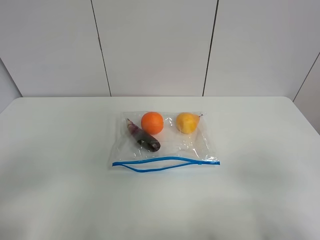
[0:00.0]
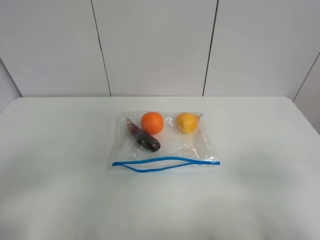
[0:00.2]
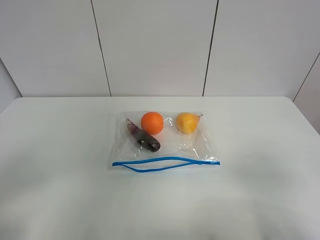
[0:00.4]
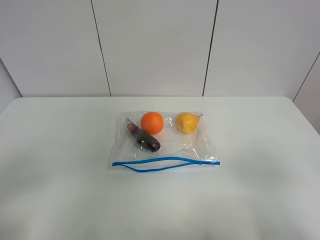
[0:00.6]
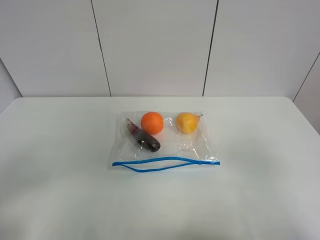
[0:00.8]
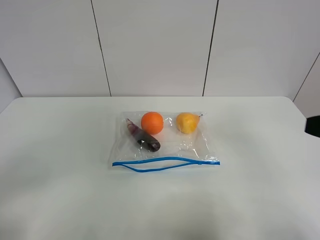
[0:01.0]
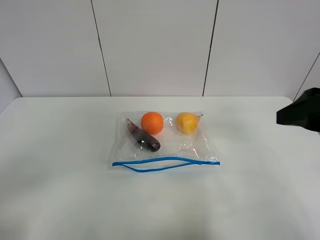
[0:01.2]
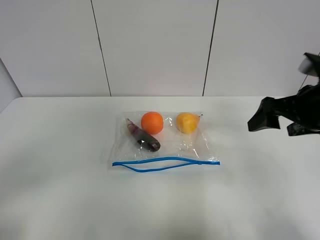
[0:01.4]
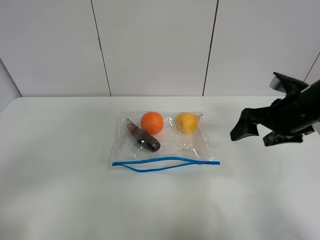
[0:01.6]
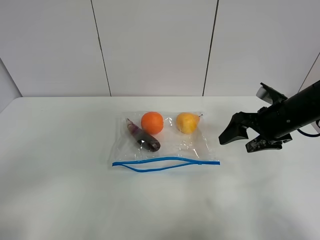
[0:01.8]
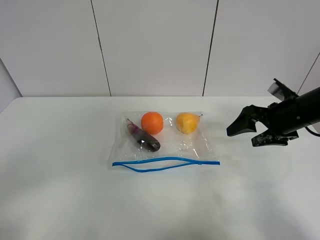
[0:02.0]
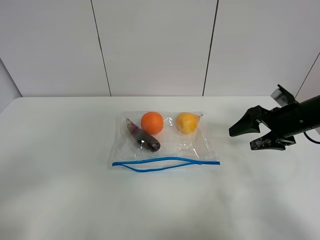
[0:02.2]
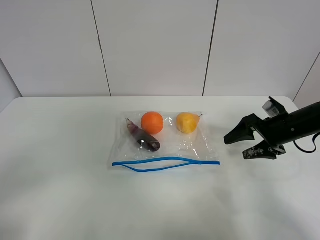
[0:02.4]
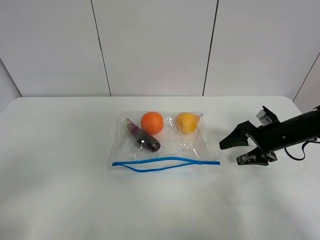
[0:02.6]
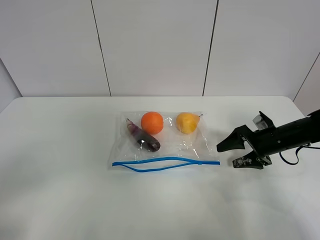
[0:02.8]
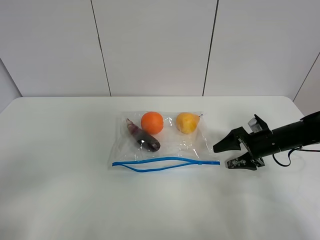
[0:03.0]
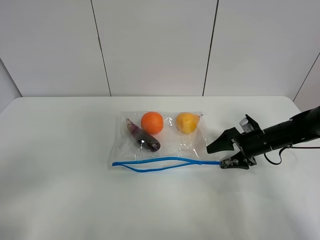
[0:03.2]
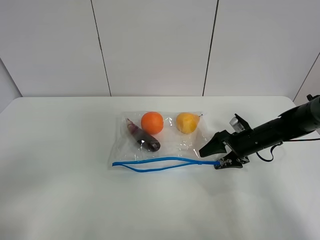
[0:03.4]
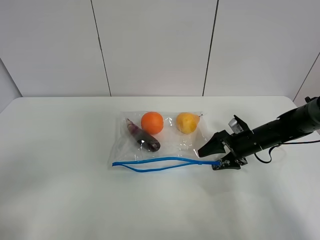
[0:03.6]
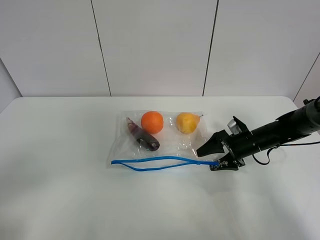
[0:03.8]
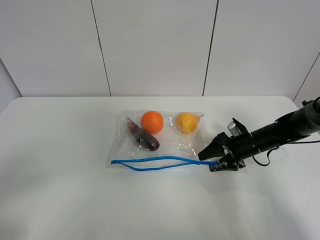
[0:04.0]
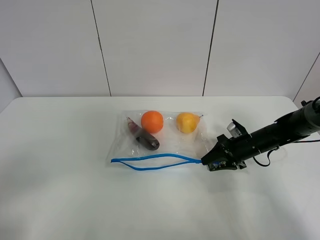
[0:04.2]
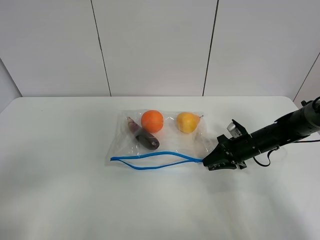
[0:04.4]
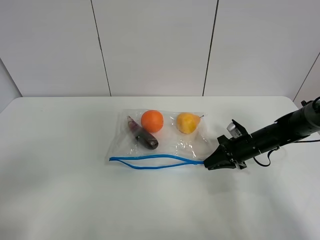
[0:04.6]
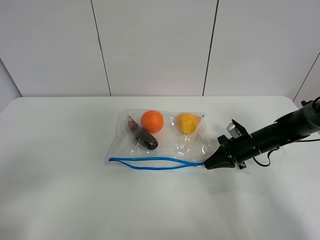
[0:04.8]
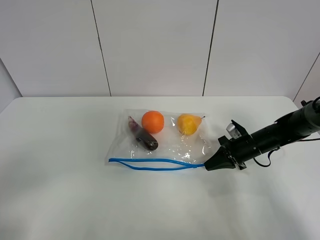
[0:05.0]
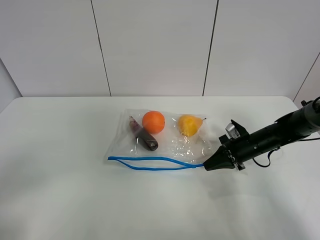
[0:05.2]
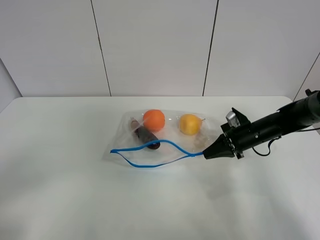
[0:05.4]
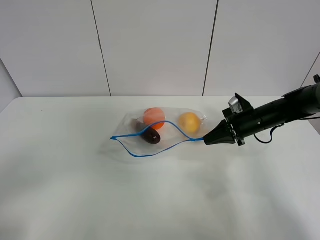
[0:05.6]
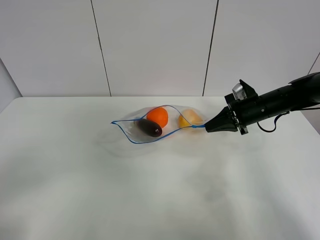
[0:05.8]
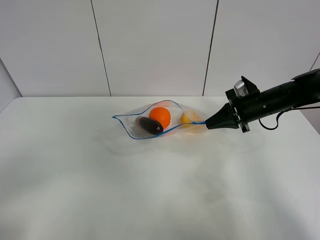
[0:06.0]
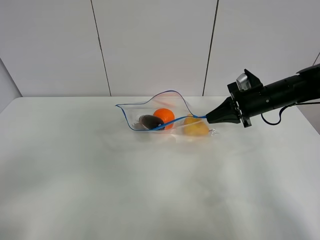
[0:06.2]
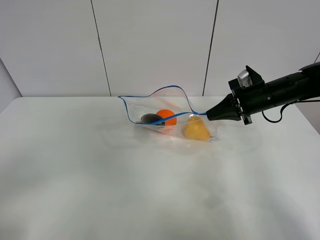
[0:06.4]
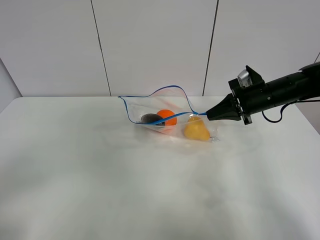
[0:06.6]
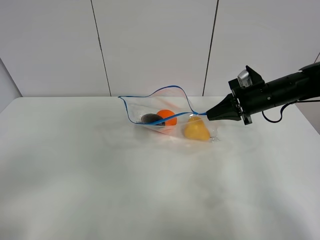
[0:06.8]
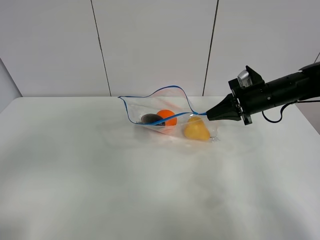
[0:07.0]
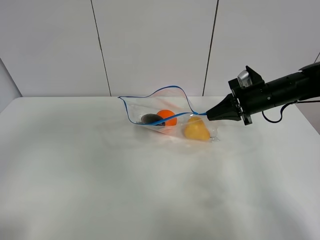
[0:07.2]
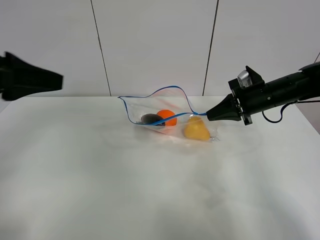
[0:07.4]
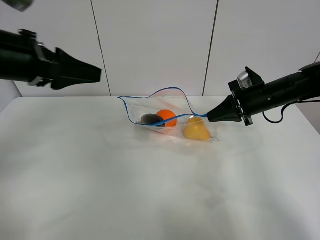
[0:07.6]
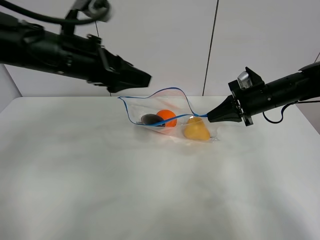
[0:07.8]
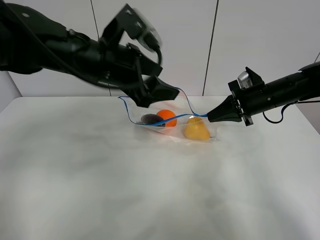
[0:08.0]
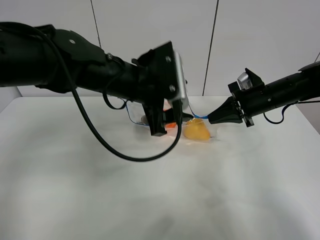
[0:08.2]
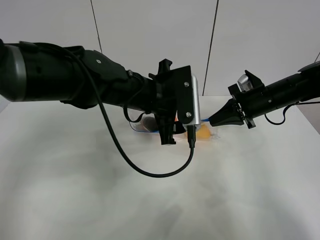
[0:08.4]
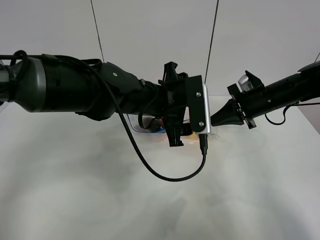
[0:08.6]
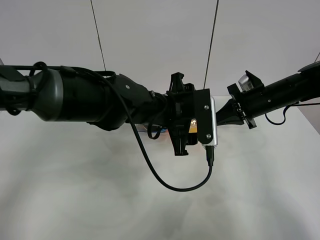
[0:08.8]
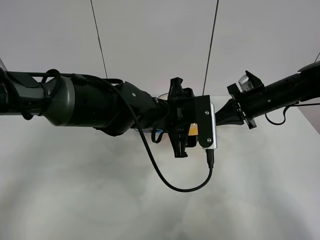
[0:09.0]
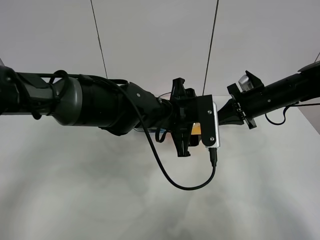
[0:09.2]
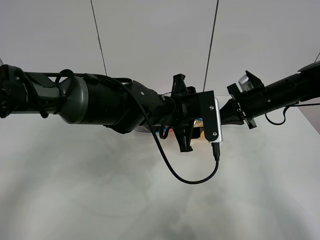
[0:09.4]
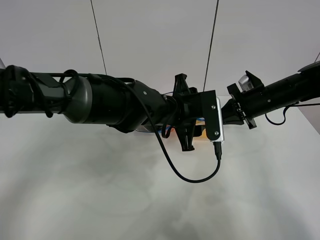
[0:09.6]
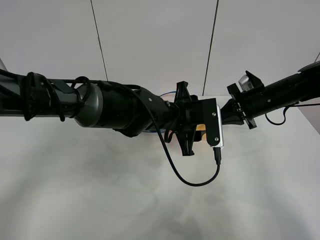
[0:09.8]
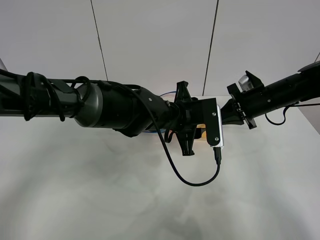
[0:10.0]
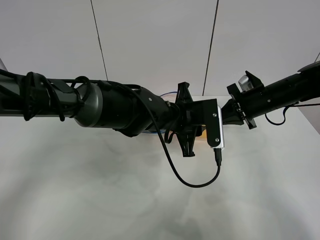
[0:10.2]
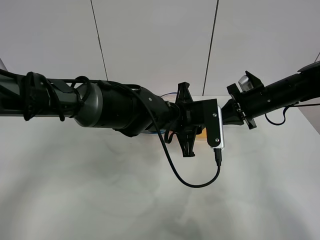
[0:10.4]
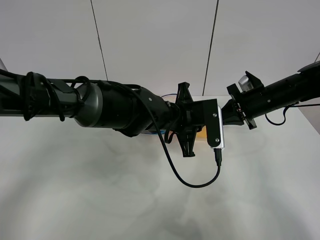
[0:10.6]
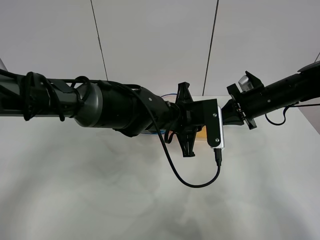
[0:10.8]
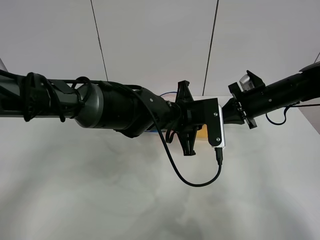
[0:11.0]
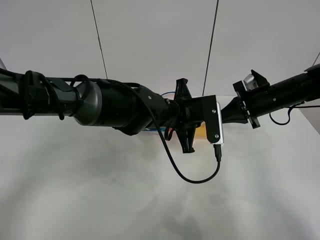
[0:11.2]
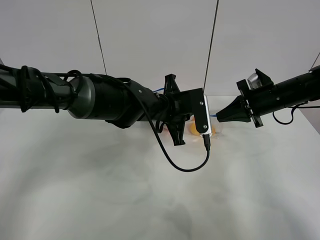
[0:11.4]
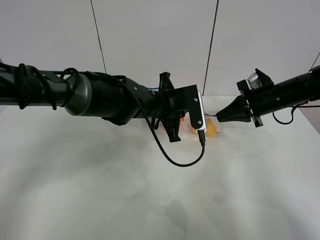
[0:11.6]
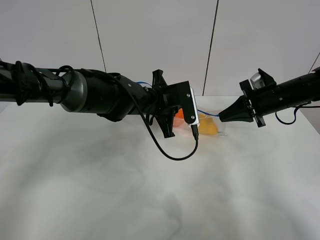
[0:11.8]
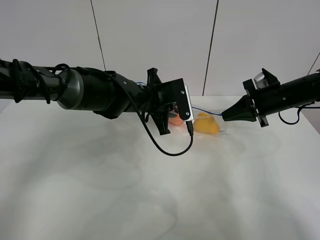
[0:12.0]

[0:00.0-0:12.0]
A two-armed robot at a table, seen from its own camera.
Step, 0:00.0 to 0:04.8: Grasp the fruit bag with right gripper.
Step, 0:05.0 to 0:06.4: Lift the fruit bag with your right gripper.
0:00.0 to 0:01.6: The right gripper moves forward, approximately 25 cm.
0:01.6 to 0:03.0: The right gripper travels downward by about 15 cm.
0:03.0 to 0:04.4: The right gripper closes up.
0:04.4 to 0:06.0: The right gripper is displaced upward by approximately 10 cm, and closes.
0:06.0 to 0:07.6: The left gripper heads forward, covering some 30 cm.
0:07.6 to 0:09.0: The left gripper travels to the right and downward by approximately 25 cm.
0:09.0 to 0:10.4: The left gripper closes.
0:10.4 to 0:12.0: The left gripper moves to the left and forward, some 10 cm.

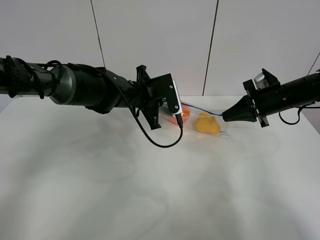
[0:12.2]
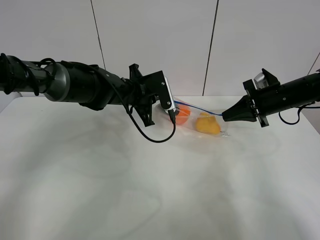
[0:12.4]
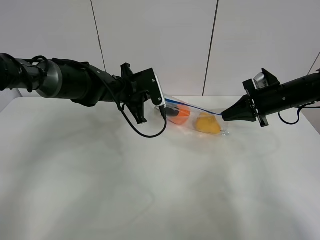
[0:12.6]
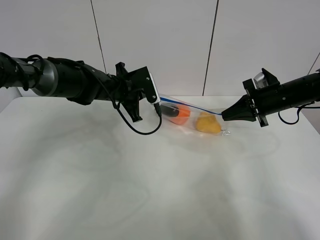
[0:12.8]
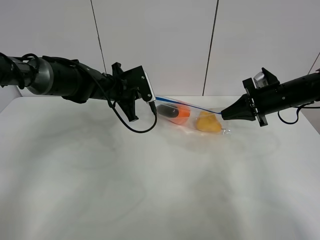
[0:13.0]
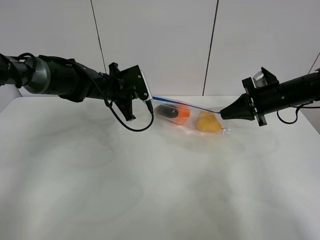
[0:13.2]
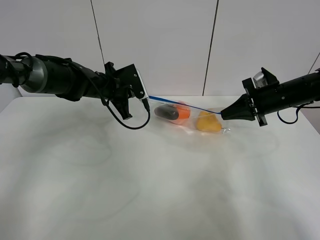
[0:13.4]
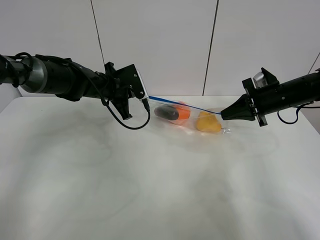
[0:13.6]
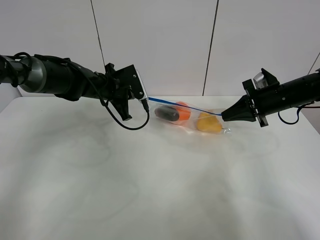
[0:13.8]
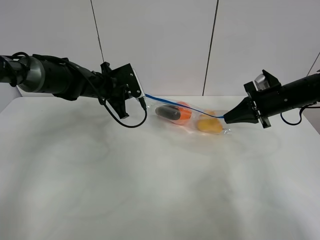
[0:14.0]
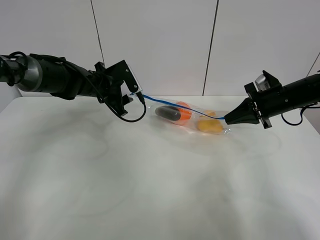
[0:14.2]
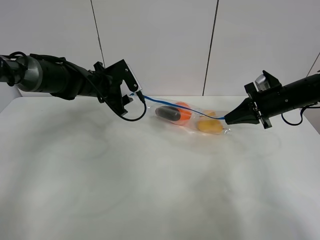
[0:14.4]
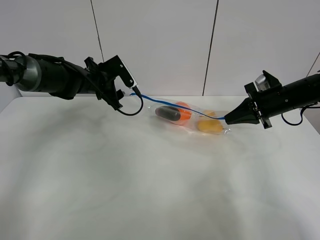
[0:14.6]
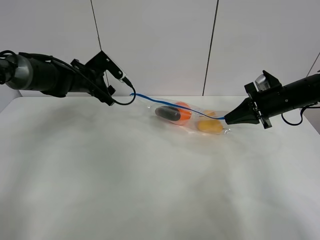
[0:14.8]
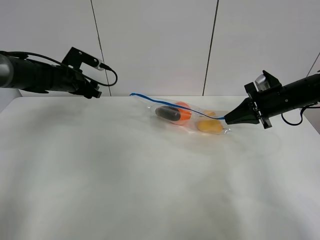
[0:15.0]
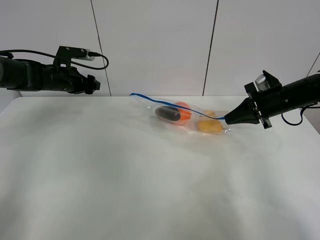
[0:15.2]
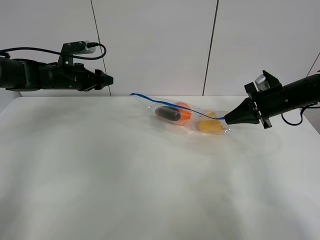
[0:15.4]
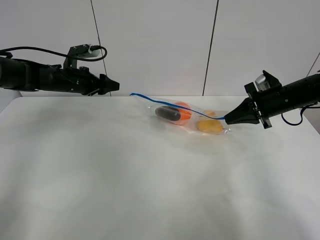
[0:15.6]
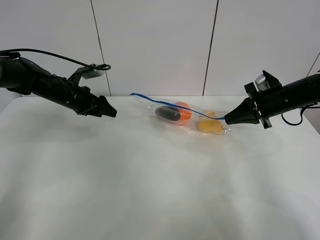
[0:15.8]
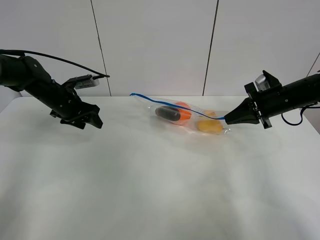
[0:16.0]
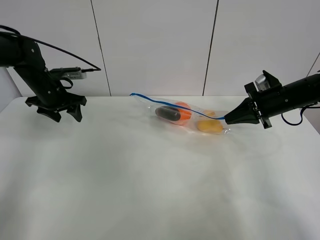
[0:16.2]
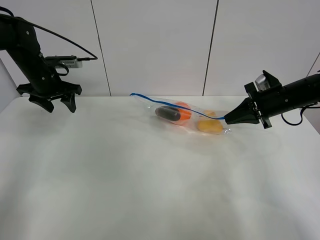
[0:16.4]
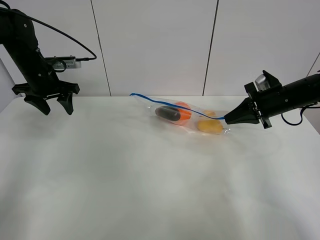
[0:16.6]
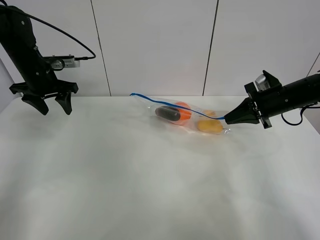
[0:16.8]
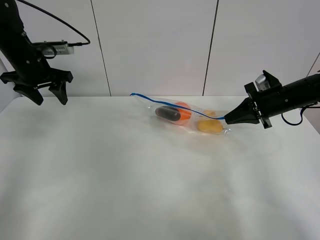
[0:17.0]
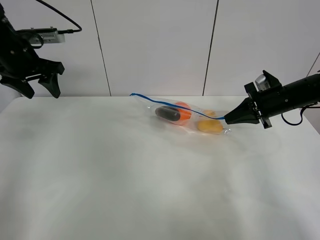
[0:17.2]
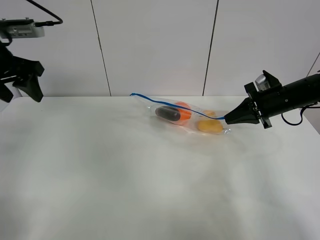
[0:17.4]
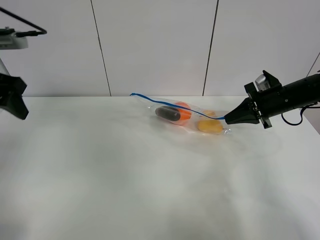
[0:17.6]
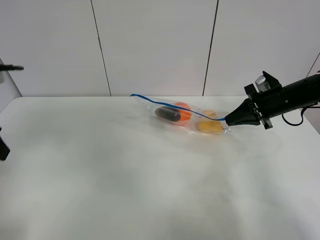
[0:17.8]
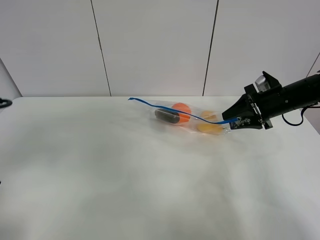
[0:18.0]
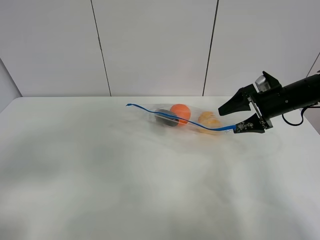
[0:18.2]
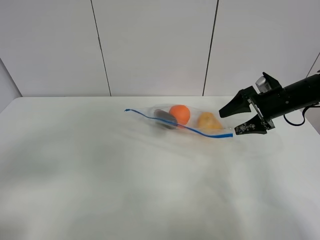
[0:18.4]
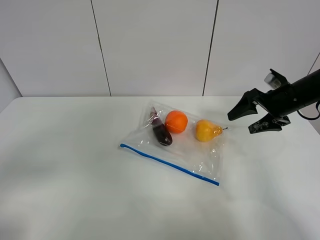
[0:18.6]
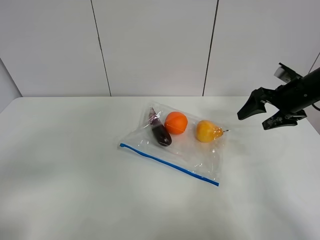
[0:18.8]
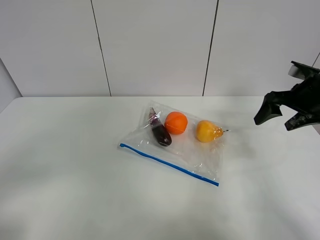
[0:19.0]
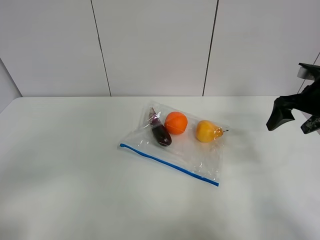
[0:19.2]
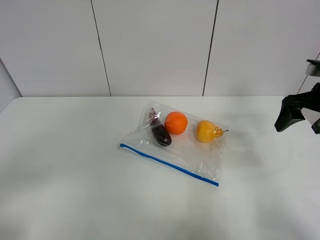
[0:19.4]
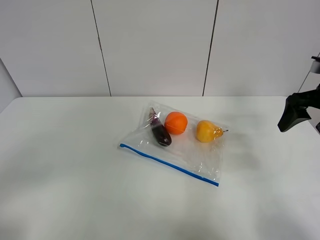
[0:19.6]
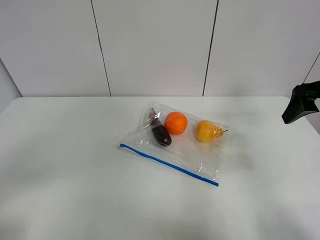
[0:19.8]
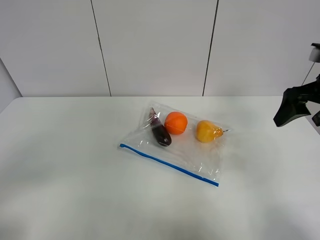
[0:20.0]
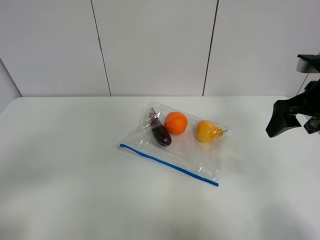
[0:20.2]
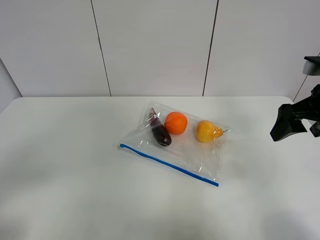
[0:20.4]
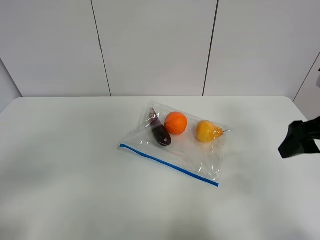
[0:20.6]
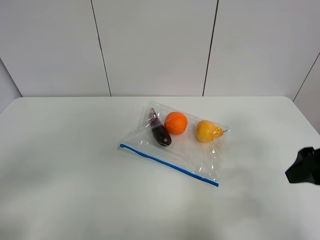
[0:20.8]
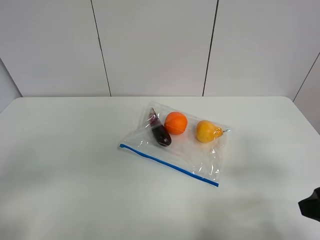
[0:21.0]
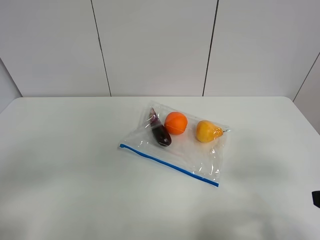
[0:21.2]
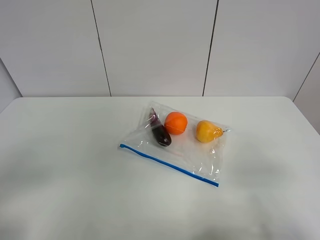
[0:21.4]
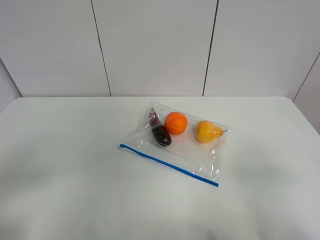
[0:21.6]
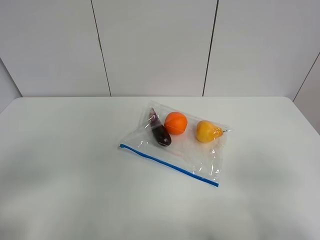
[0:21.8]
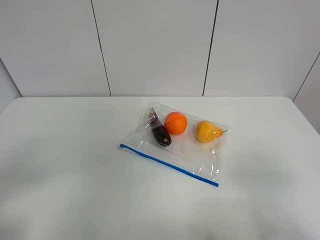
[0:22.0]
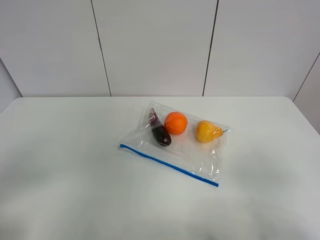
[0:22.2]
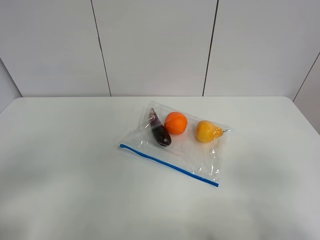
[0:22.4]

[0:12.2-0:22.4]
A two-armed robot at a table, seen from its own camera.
Step, 0:12.2 to 0:14.4: Pull the fruit bag with left gripper.
0:12.2 to 0:13.6: The left gripper heads to the left, covering approximately 10 cm.
0:13.6 to 0:15.2: The left gripper travels to the left by some 10 cm, and opens its fingers.
0:15.2 to 0:16.6: The left gripper shifts about 5 cm upward.
0:16.6 to 0:18.0: The right gripper opens up. Meanwhile the left gripper is displaced backward by about 30 cm.
0:18.0 to 0:19.4: The left gripper shifts roughly 10 cm backward; the right gripper goes roughly 10 cm upward and backward.
0:19.4 to 0:21.0: The right gripper travels backward by about 20 cm.
0:21.0 to 0:22.4: The right gripper shifts some 10 cm backward.
